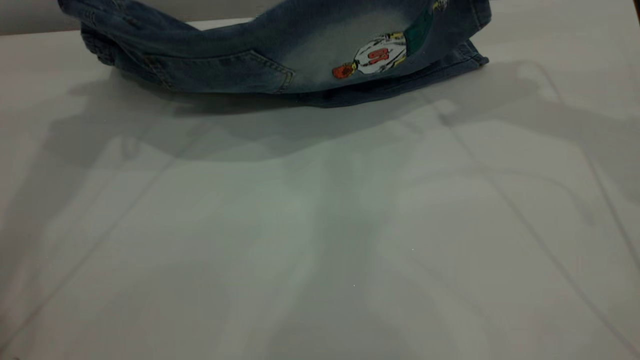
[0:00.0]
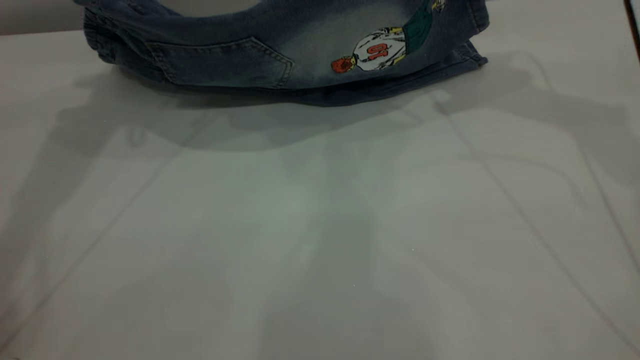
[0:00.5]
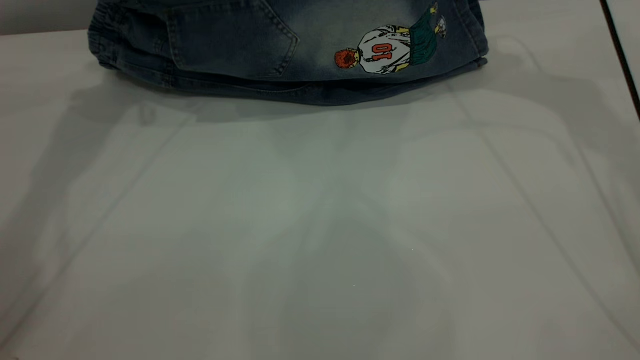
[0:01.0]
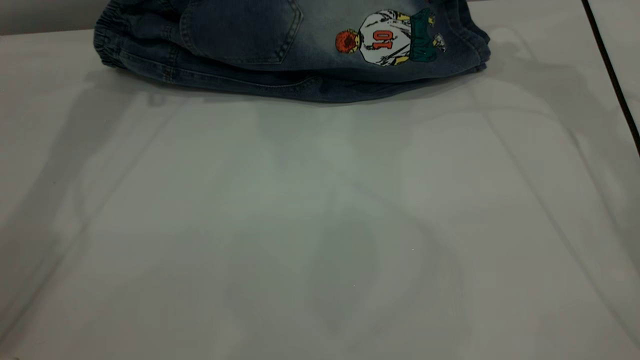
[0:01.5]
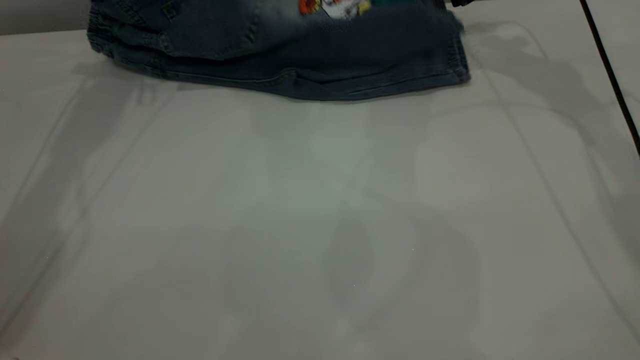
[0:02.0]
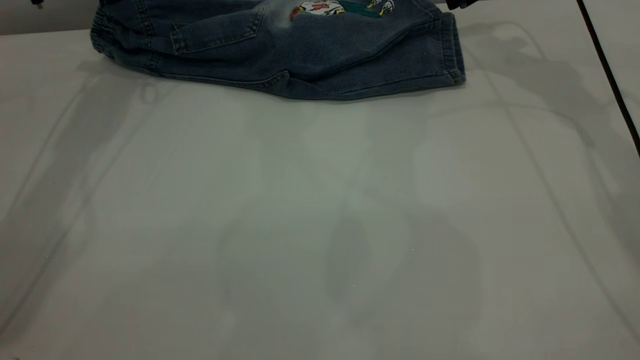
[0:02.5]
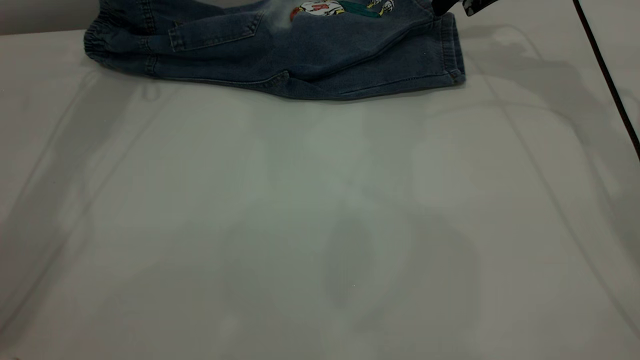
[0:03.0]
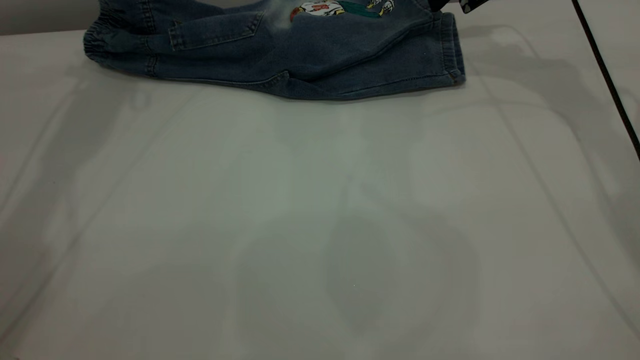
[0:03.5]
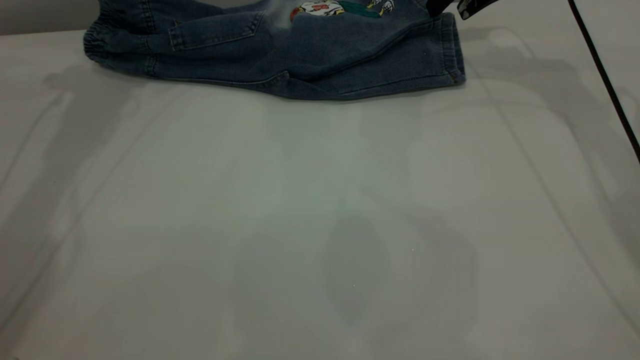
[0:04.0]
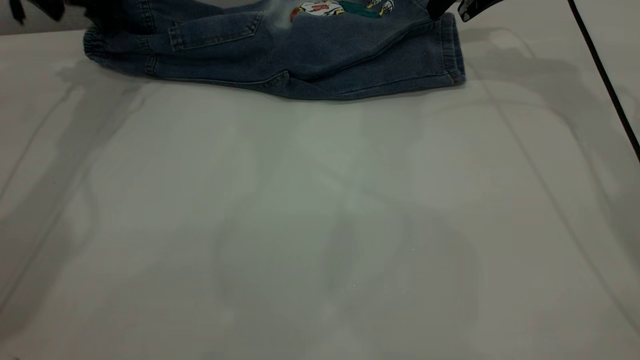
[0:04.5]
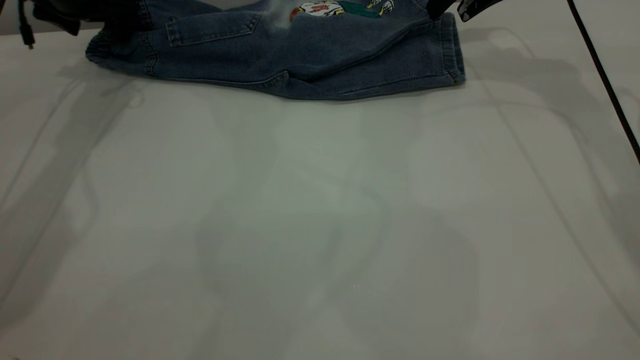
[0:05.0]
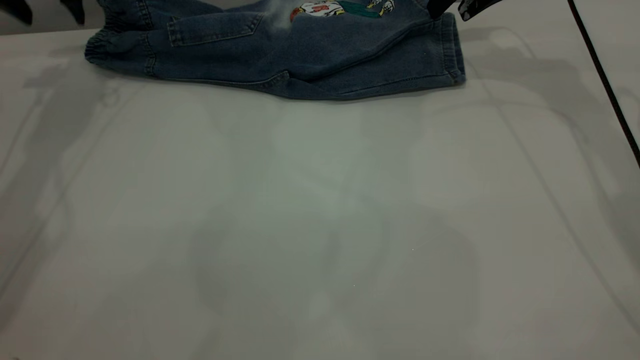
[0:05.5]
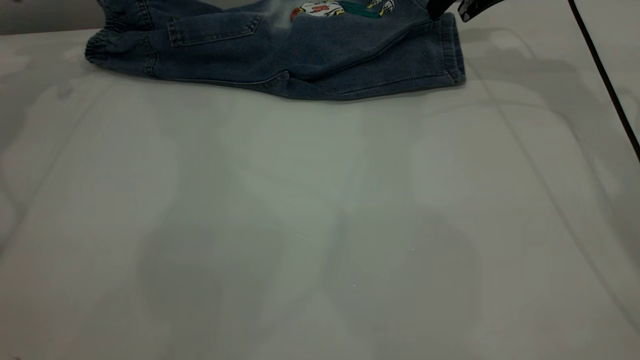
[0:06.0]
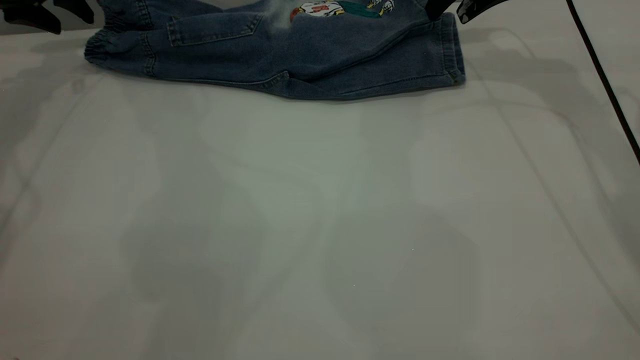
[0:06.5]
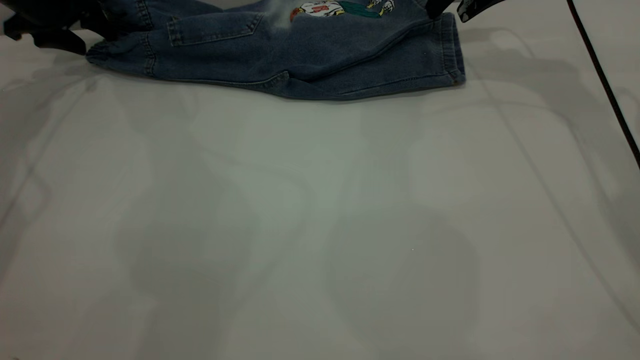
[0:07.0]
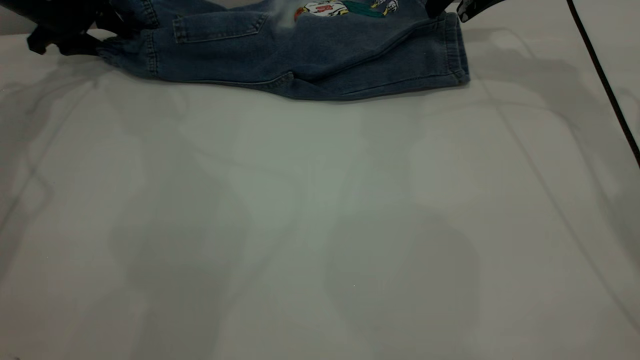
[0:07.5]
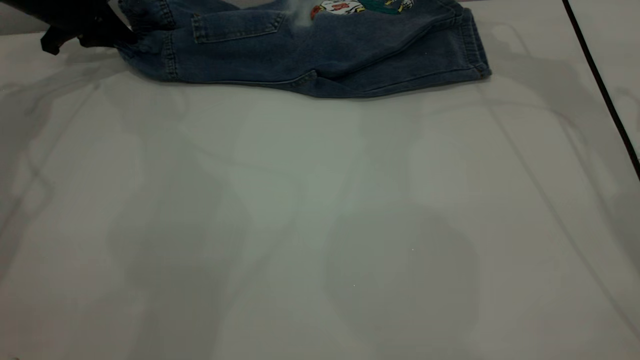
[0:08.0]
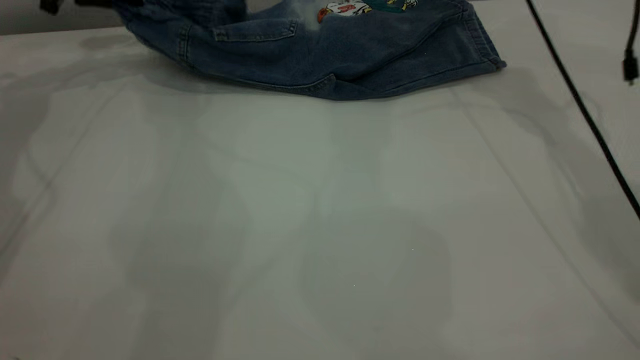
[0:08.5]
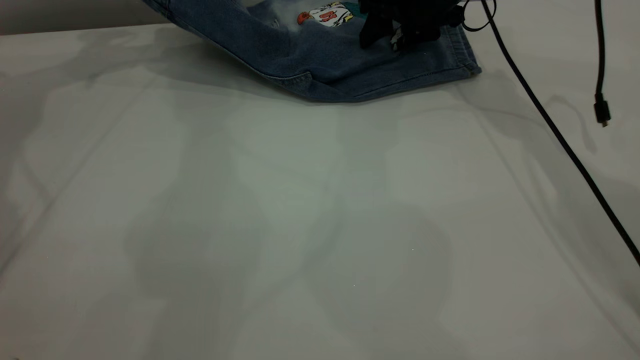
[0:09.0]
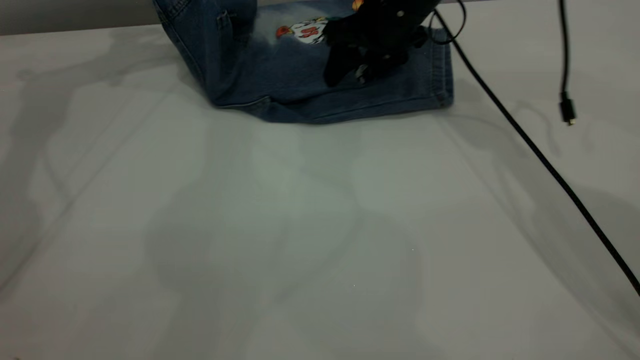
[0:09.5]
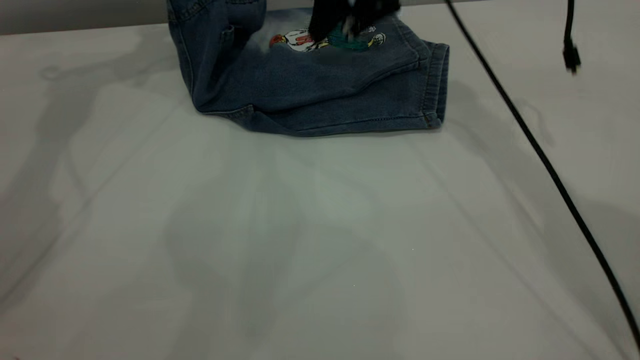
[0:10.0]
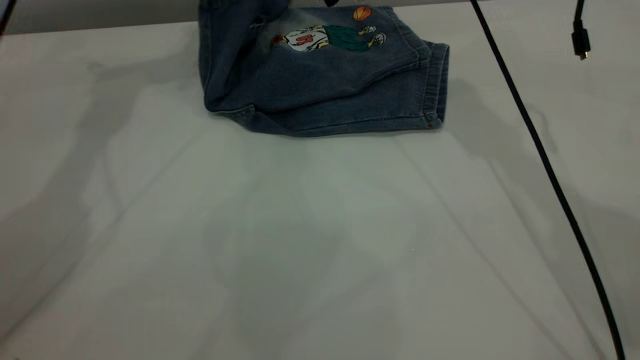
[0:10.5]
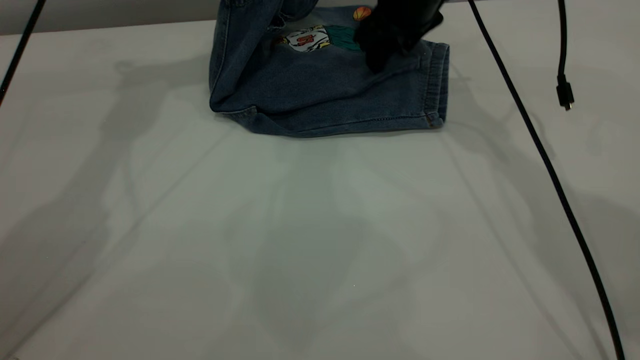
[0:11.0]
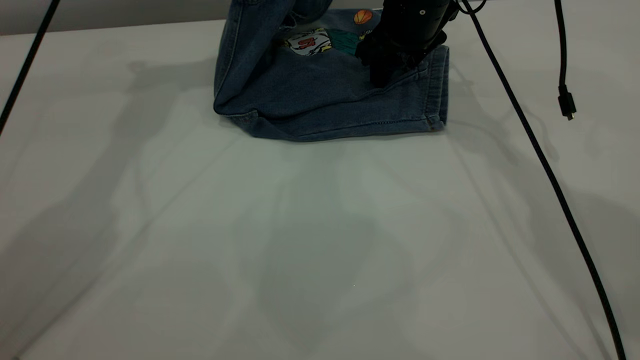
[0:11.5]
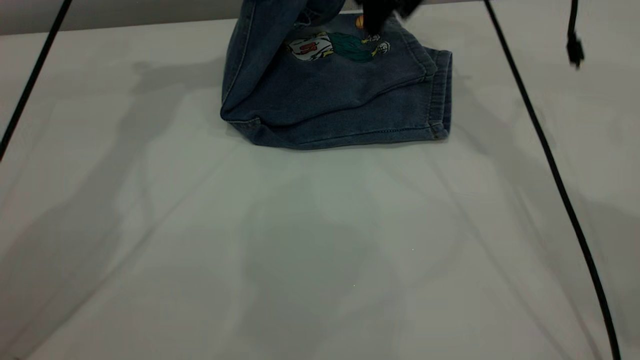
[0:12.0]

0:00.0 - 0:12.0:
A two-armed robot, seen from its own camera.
Step, 0:00.0 - 0:04.0: Fold the bottom of the pants upward.
0:00.0 - 0:02.0: The two grippers go approximately 15 cm forward and downward.
0:02.0 - 0:04.0: The right gripper opens up. Meanwhile the left gripper opens up.
0:06.0 - 0:08.0: The left gripper travels downward by some 10 cm, and closes.
0:08.0 - 0:10.0: The right gripper moves to the left and backward, some 15 cm. The left gripper travels upward and to the right by some 15 cm.
0:10.0 - 0:12.0: The right gripper moves about 10 cm downward and comes back. The left gripper is displaced to the right by approximately 10 cm.

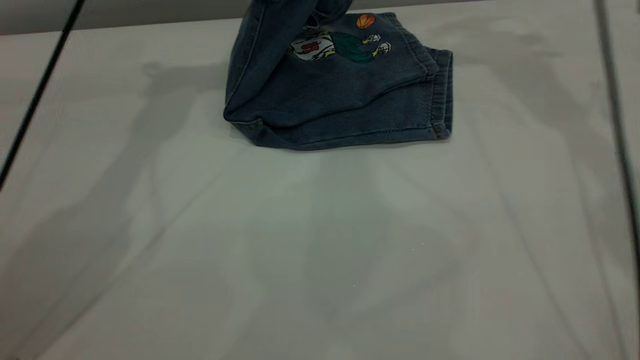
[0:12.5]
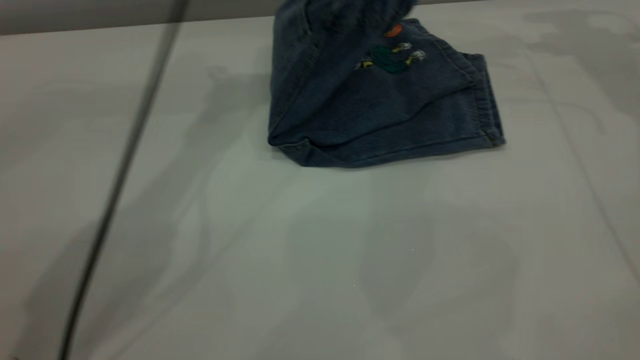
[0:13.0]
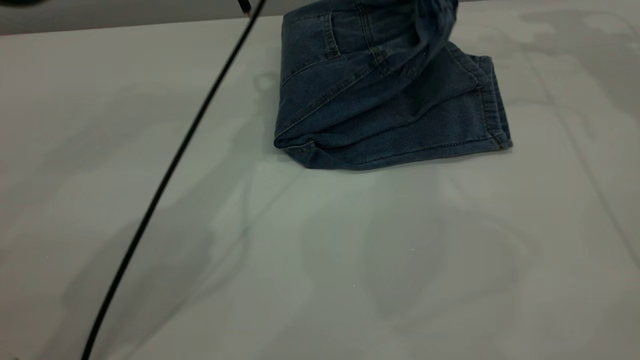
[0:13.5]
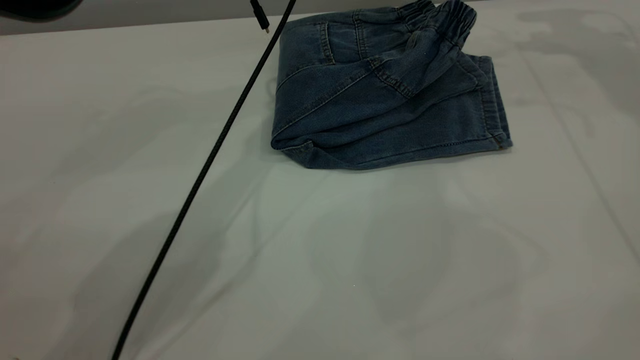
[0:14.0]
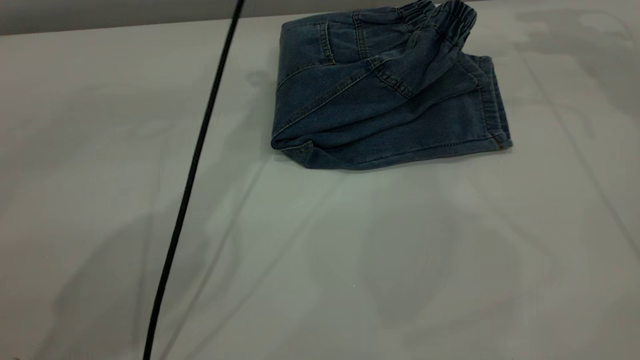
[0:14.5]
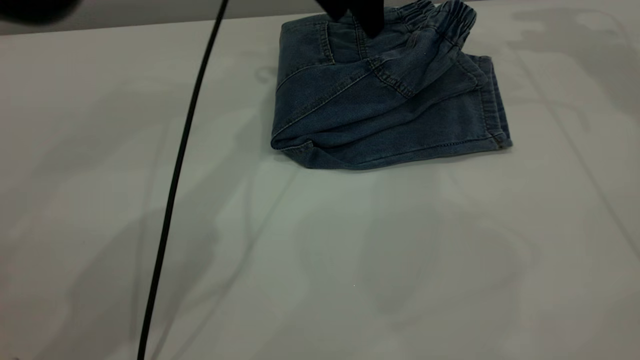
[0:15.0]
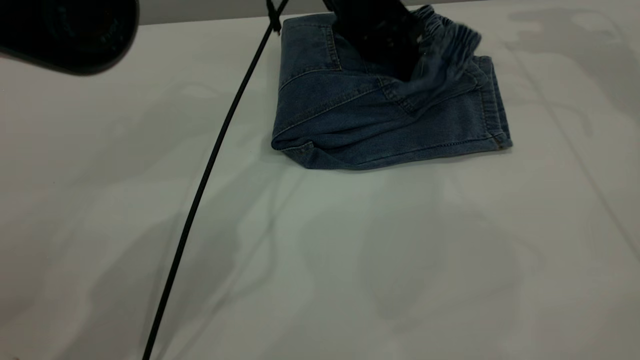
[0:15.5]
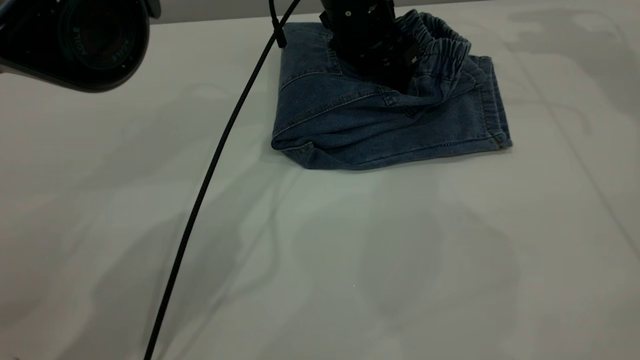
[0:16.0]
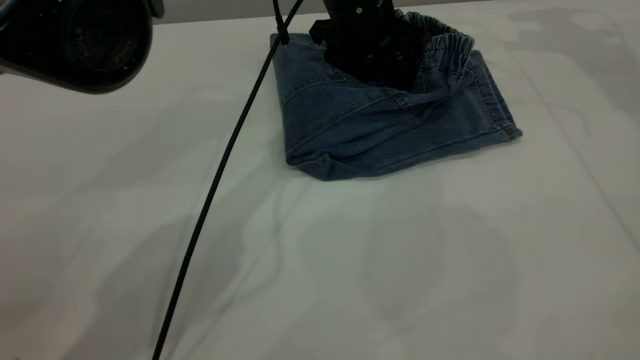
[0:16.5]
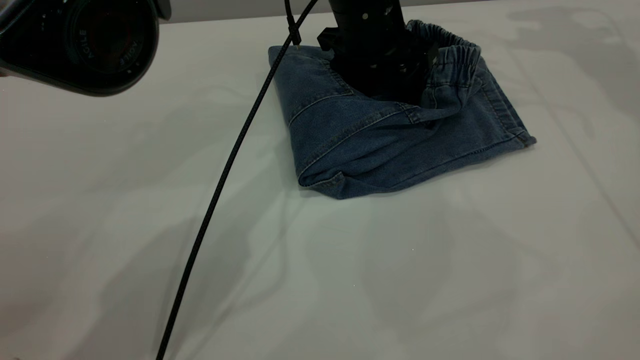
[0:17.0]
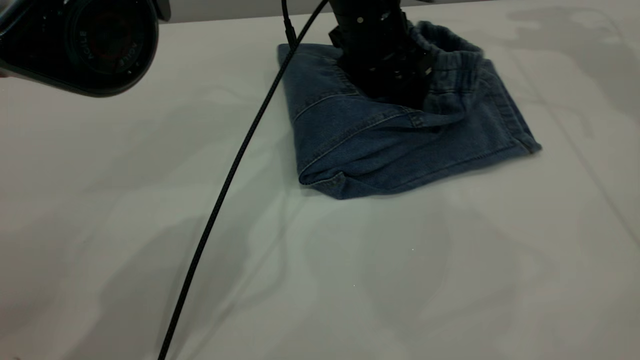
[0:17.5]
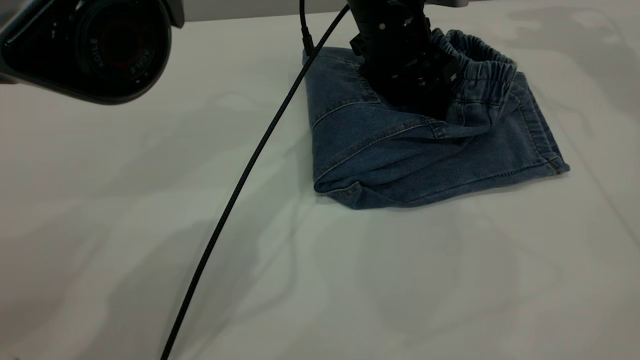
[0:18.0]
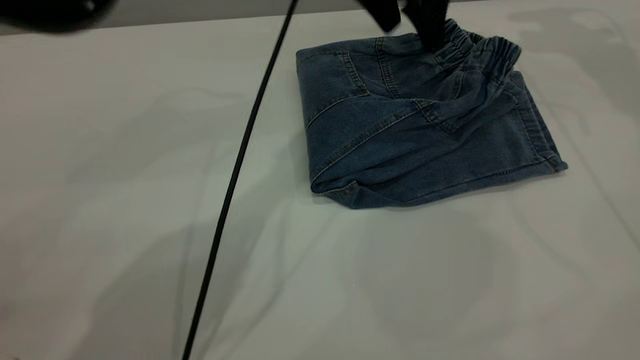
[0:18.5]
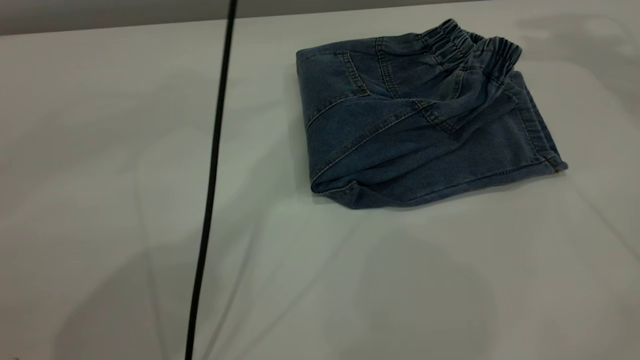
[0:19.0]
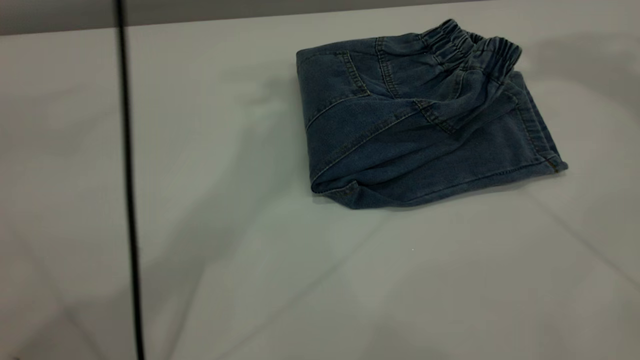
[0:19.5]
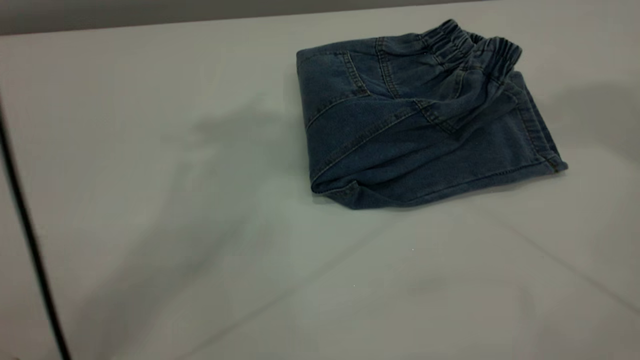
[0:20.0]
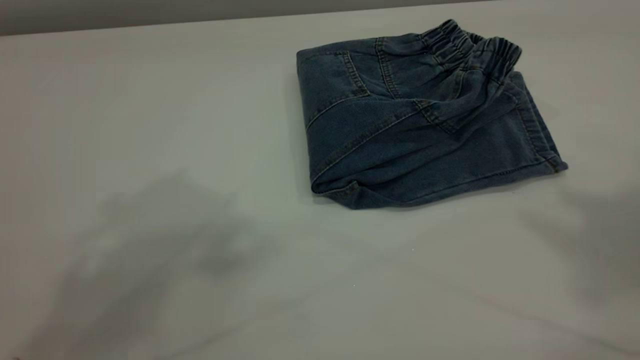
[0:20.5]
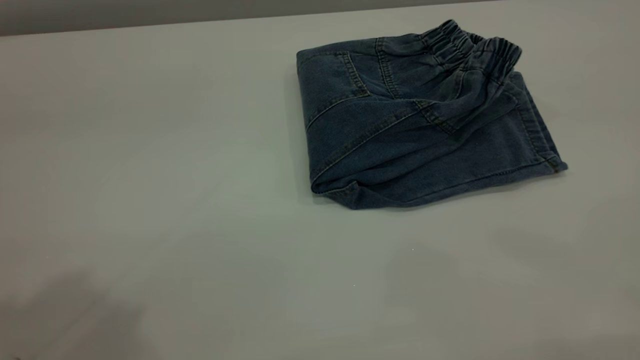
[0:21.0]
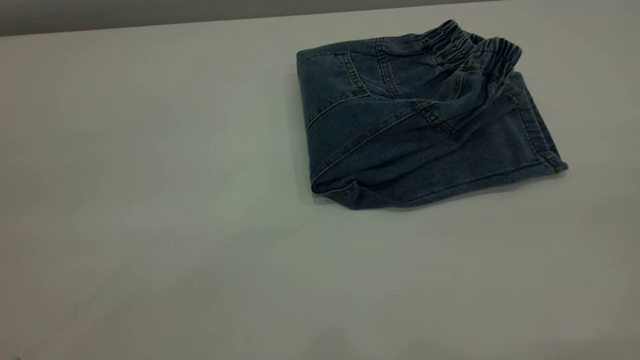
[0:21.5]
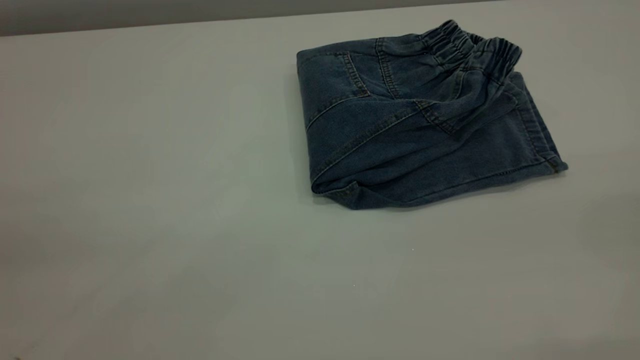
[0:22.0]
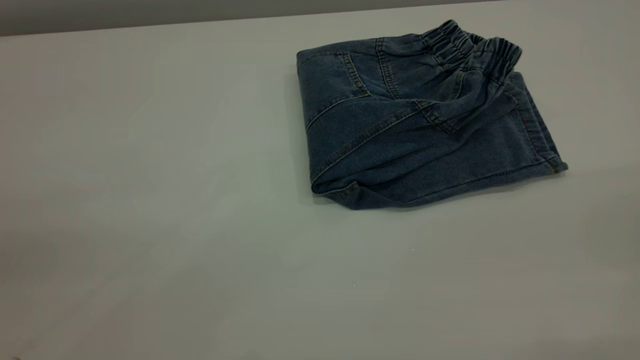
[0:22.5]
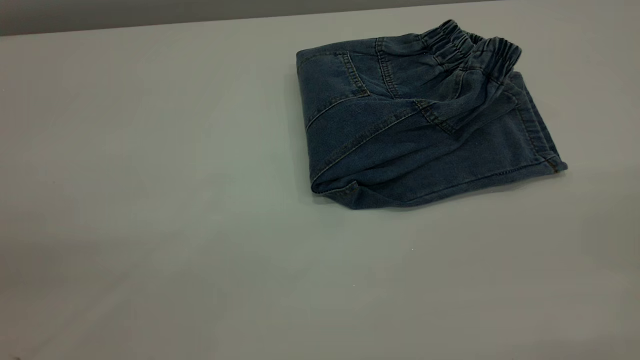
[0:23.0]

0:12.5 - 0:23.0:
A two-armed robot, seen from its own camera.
0:12.5 - 0:14.5: Both grippers move to the right, some 10 cm. The left gripper opens its fingers.
0:14.5 - 0:16.5: The left gripper heads downward, covering about 15 cm.
0:16.5 - 0:19.0: The right gripper travels upward by some 10 cm; the left gripper shifts some 25 cm upward.
0:19.0 - 0:21.0: The left gripper is displaced backward and to the left by approximately 40 cm, while the right gripper moves backward, approximately 40 cm.
